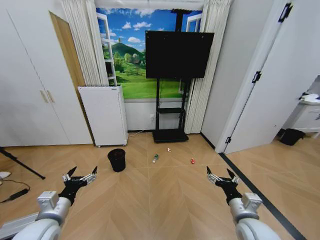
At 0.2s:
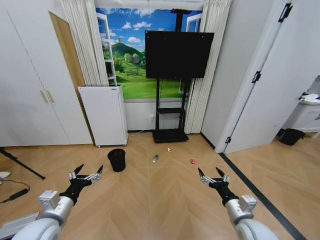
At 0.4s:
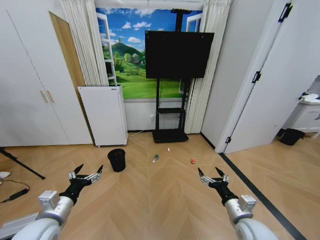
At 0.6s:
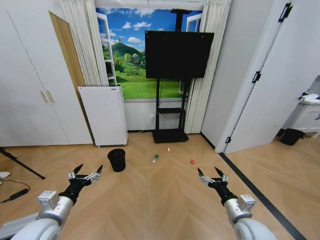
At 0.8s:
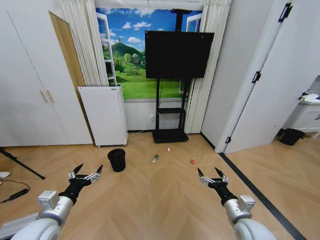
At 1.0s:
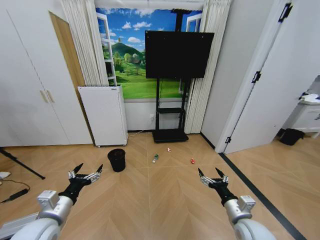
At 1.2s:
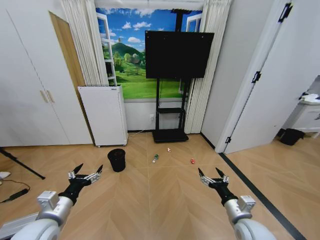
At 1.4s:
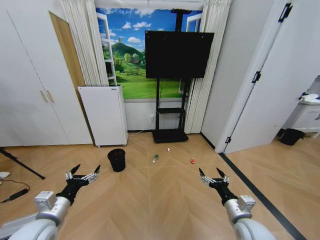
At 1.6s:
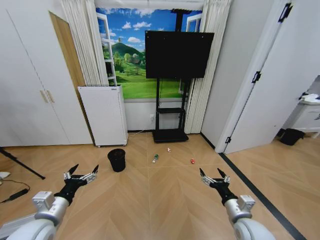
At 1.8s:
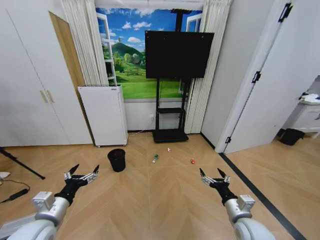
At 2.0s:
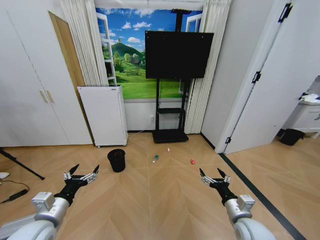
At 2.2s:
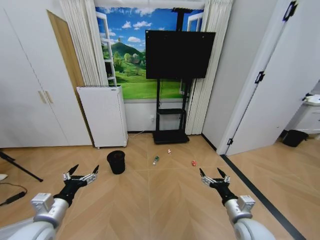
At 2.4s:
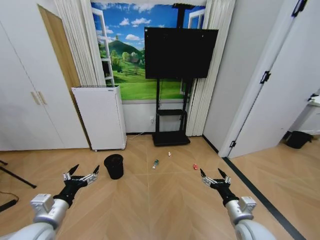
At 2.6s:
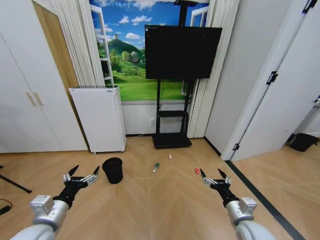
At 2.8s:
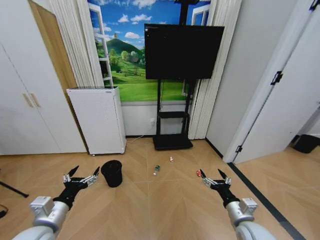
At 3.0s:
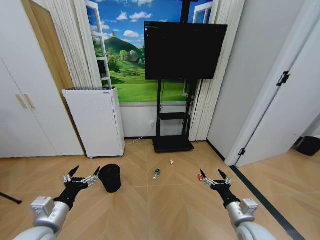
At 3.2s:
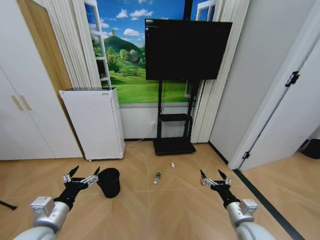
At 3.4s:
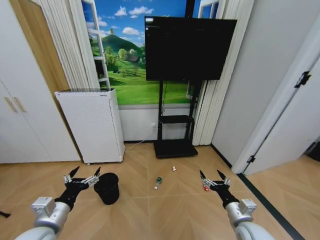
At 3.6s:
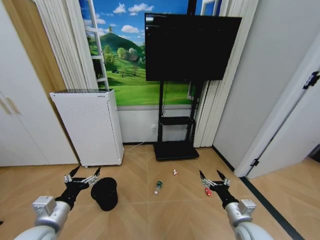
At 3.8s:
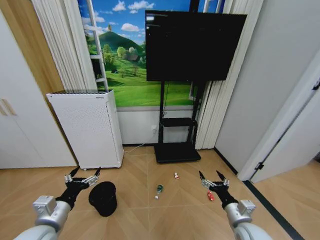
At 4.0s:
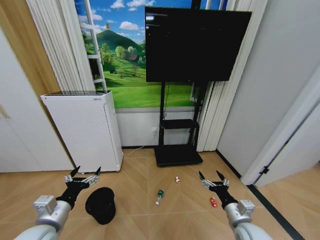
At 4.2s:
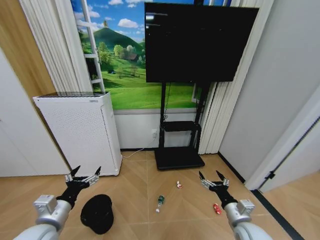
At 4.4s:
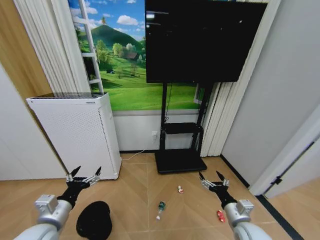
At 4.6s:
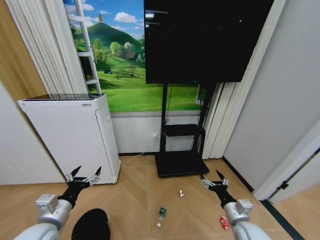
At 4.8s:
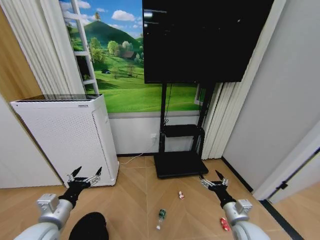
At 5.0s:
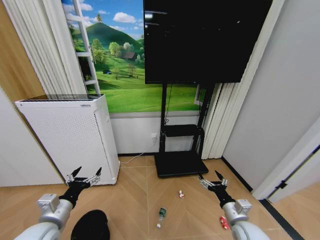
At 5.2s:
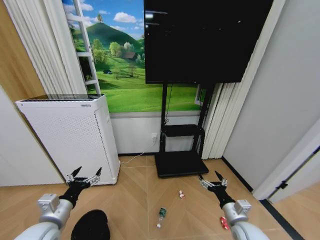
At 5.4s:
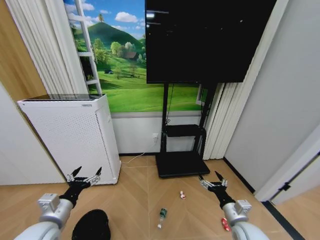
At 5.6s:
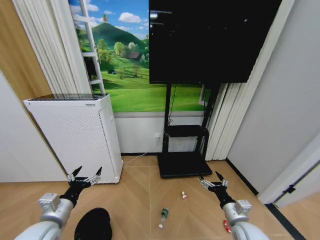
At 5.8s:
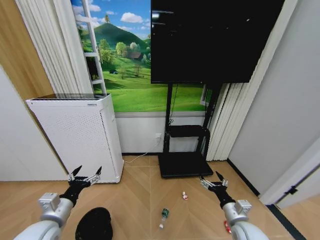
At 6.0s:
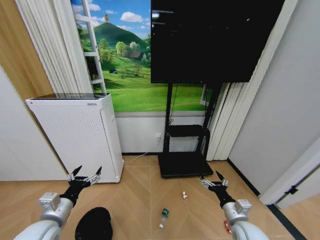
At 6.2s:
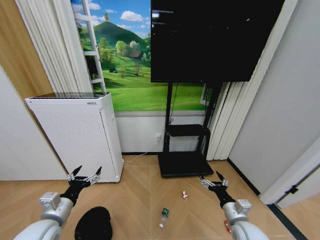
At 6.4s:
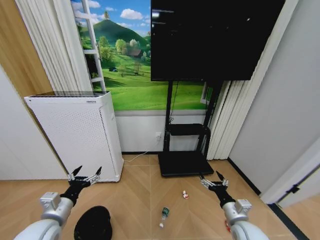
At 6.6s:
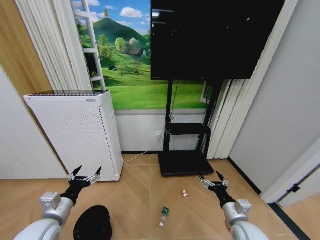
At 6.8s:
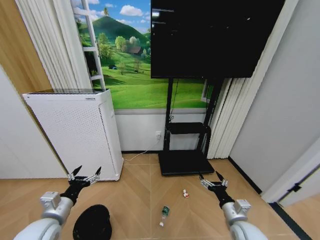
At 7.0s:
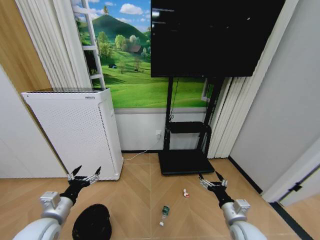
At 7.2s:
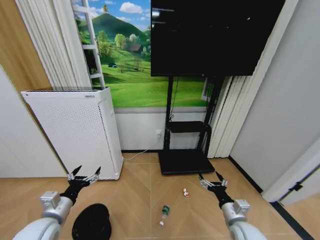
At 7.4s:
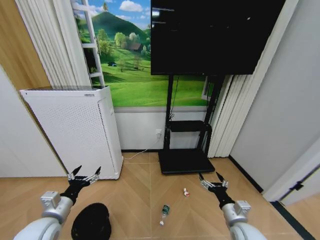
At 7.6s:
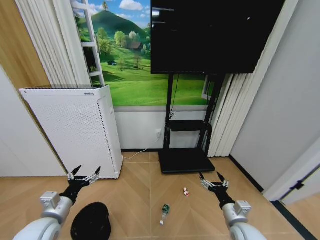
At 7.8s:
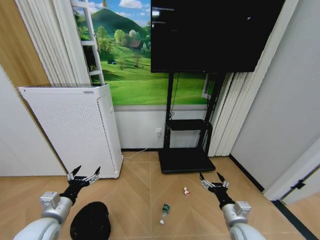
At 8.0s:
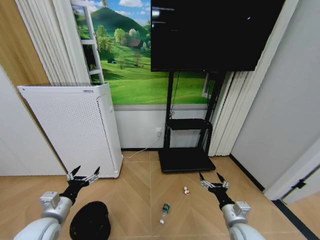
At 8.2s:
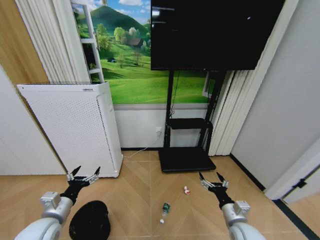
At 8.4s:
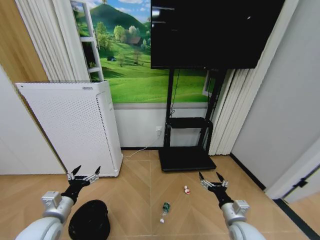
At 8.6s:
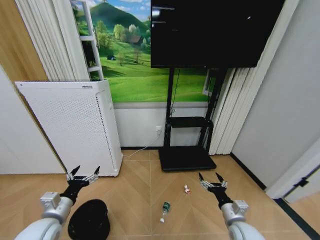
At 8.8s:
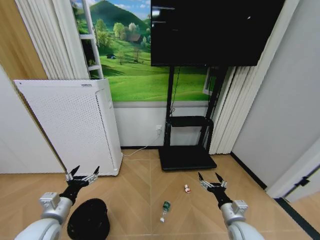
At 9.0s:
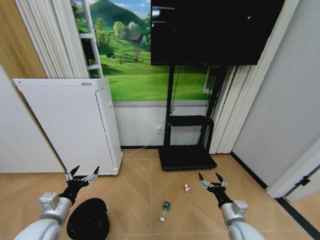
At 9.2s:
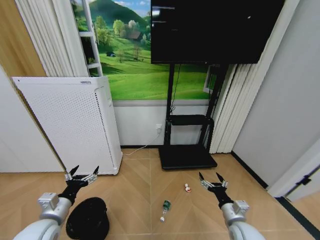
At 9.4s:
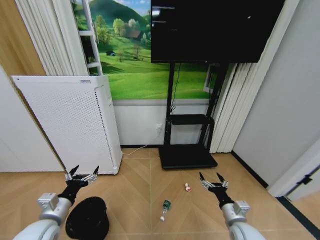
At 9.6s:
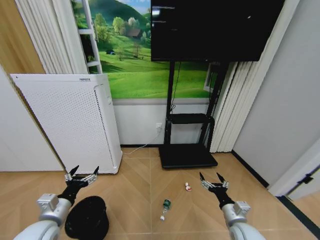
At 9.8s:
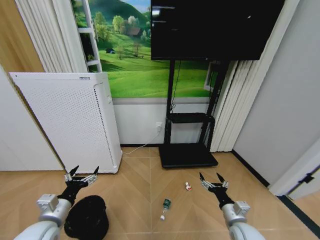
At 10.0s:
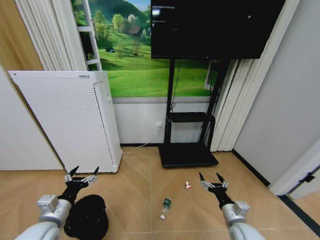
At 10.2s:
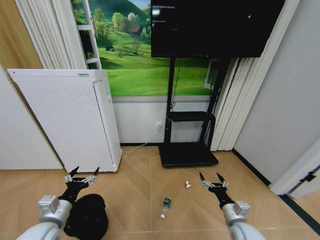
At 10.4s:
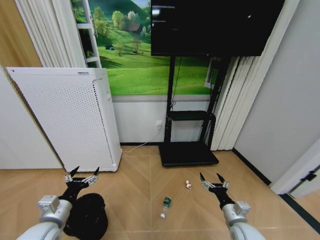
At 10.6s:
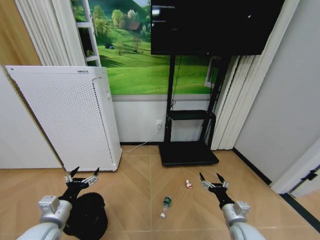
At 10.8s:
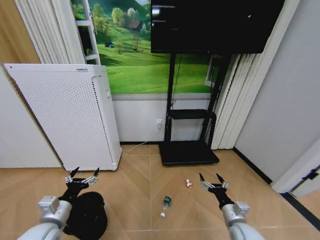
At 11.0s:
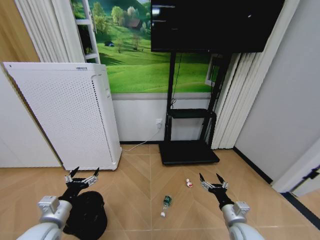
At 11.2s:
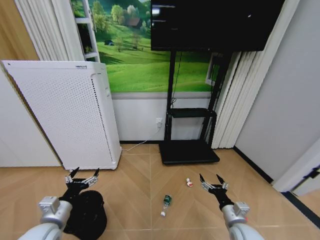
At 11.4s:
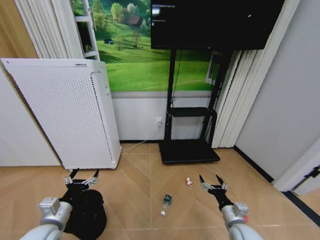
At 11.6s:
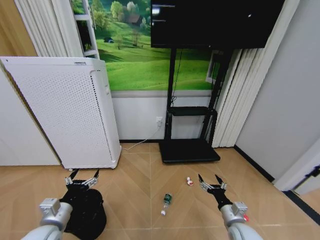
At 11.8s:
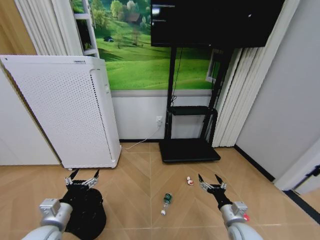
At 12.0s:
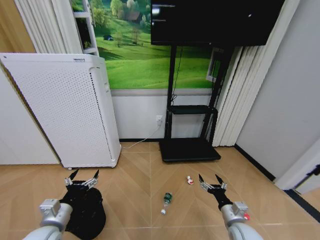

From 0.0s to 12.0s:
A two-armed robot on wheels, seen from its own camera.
Task of the whole recording: Pick up the trash bin and place the garbage on the floor into it.
From 6.0s to 9.0s: There are only small adjustments of the grippers.
From 9.0s to 10.4s: Both grippers stay put.
From 10.4s to 12.0s: The two grippers keep their place.

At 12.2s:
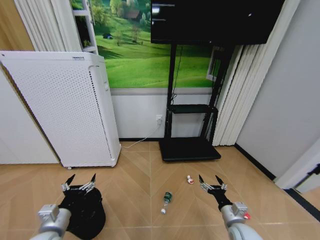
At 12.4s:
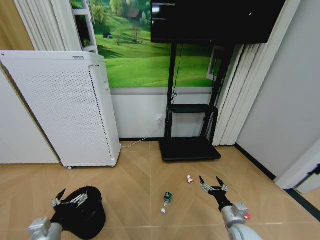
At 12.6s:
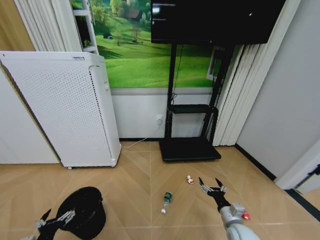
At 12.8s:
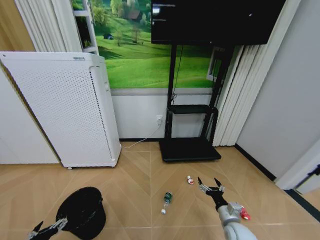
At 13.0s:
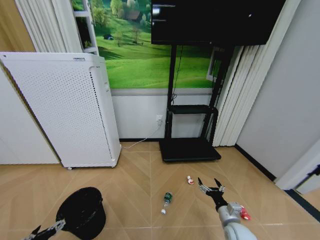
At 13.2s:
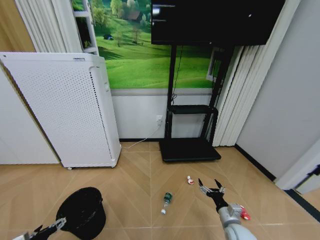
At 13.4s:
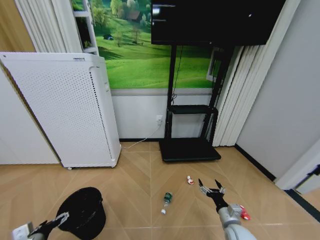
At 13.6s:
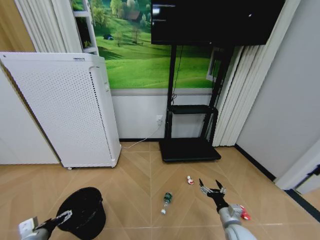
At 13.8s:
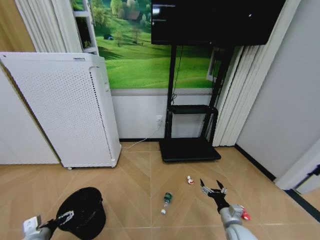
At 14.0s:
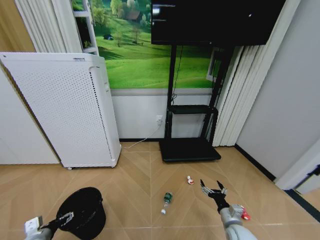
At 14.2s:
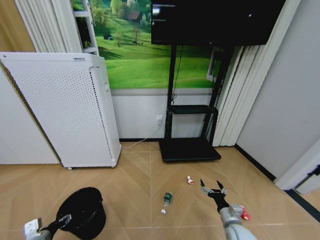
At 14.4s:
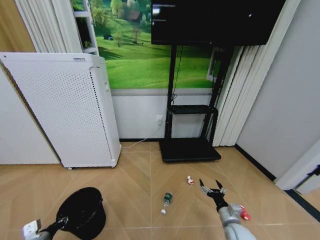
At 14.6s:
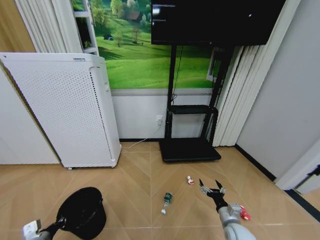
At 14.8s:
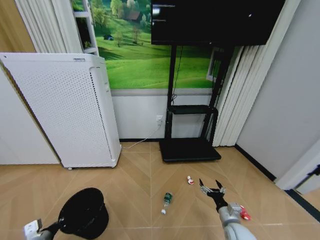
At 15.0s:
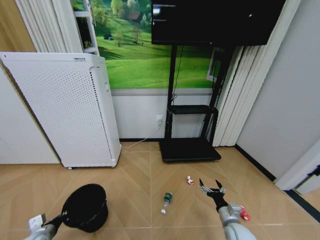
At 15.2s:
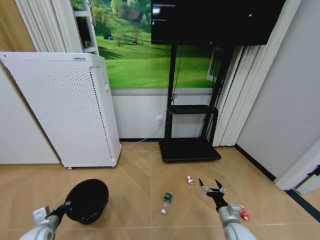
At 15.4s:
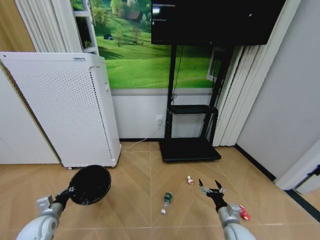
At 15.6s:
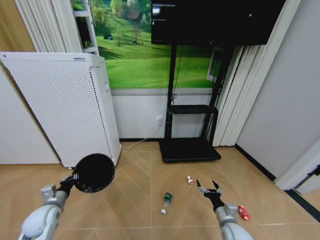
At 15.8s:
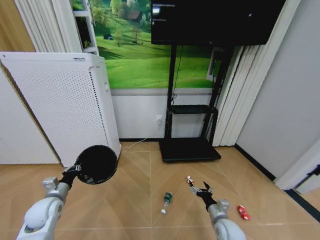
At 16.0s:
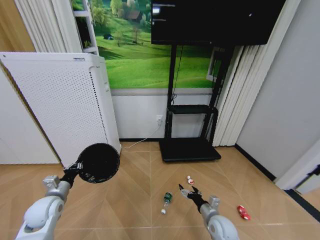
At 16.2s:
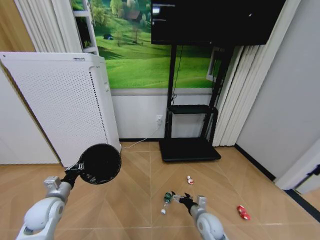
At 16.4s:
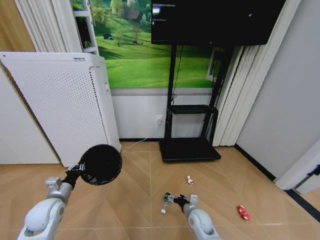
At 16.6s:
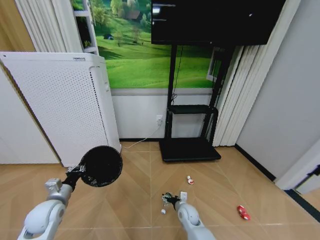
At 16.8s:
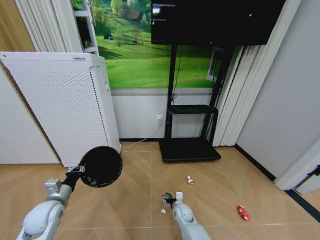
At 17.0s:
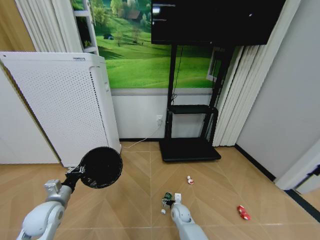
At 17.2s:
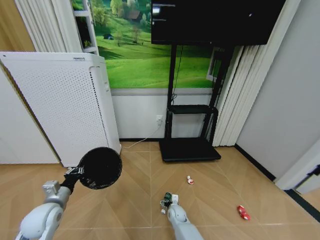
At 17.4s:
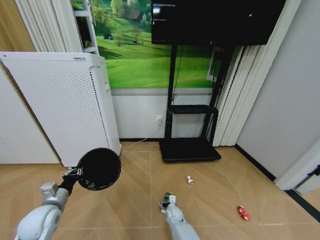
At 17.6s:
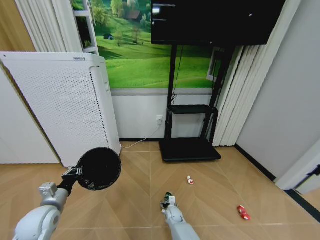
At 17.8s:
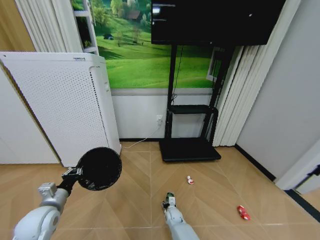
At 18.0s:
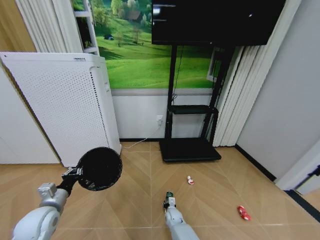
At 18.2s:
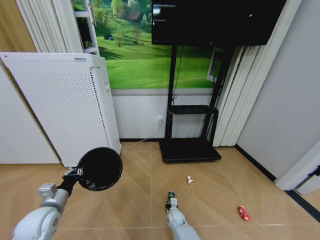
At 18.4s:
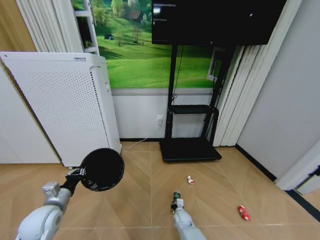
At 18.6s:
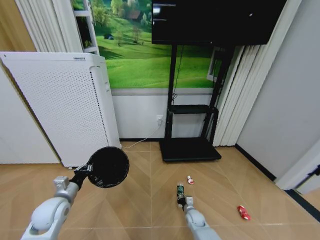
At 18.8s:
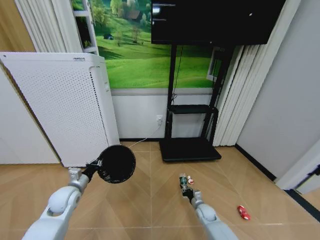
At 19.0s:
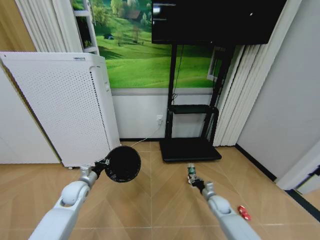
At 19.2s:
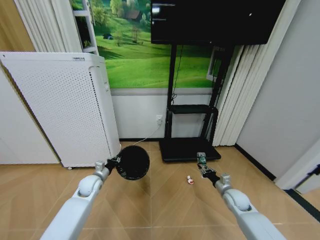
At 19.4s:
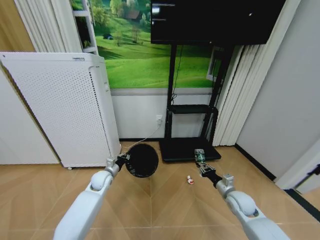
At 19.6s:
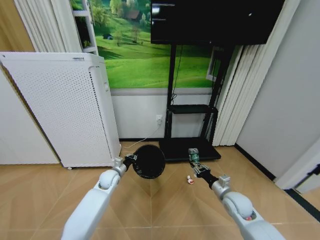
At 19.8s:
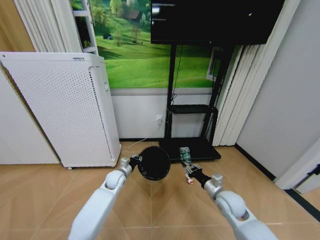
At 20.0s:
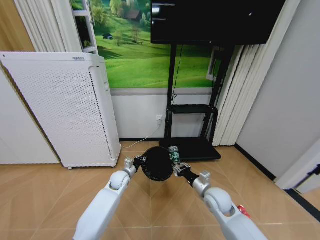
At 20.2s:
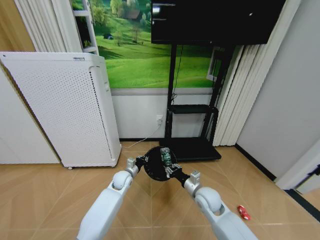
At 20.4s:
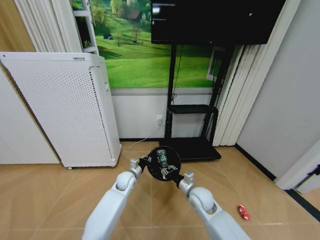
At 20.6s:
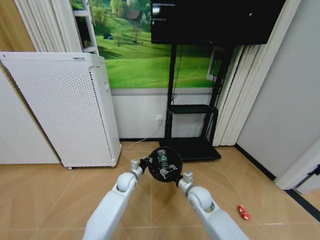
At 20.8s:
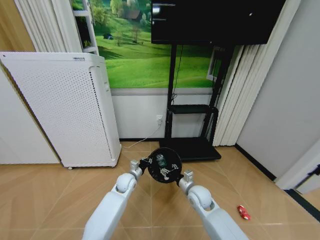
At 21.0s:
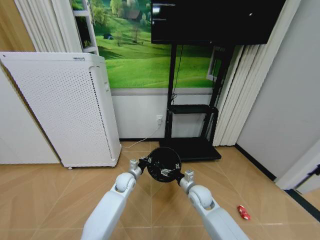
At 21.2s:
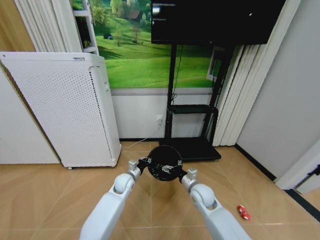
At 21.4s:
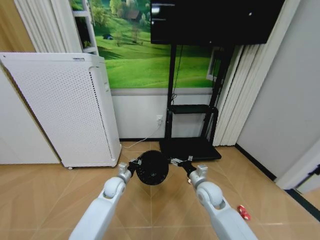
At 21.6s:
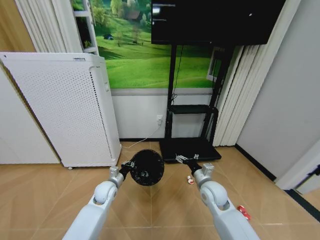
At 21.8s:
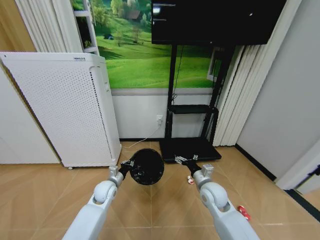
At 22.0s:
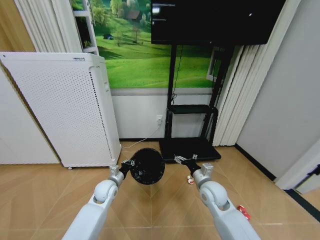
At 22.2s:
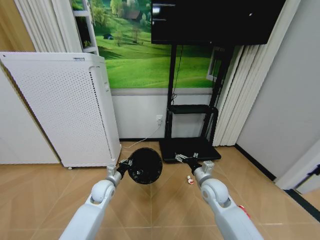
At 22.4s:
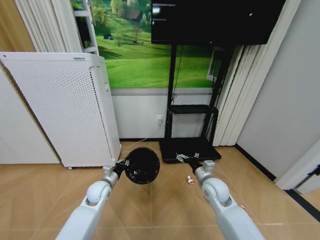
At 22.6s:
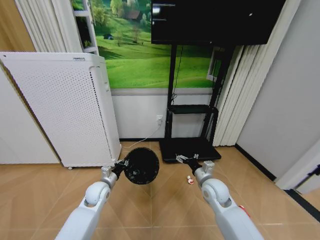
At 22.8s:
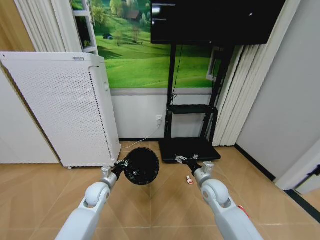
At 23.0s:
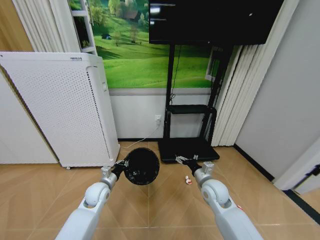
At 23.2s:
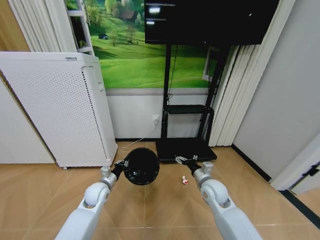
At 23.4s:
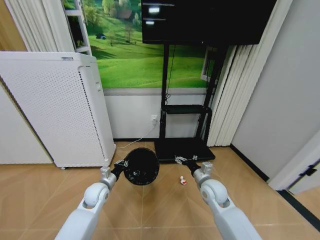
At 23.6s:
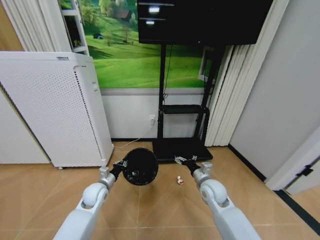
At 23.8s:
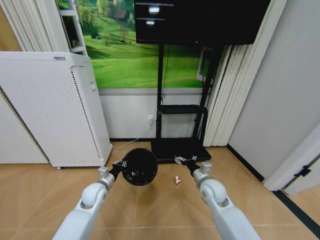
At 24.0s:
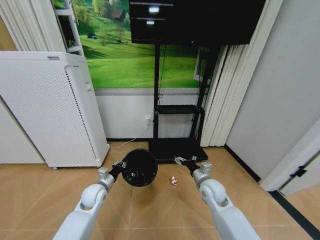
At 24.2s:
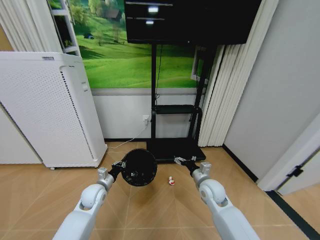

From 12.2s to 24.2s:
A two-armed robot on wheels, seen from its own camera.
Task of the whole recording: Pick up the trash bin and place the garbage on the floor into it.
From 12.2s to 13.8s: The left gripper goes roughly 15 cm to the left and downward.
From 13.8s to 15.2s: The left gripper closes.
From 15.2s to 16.6s: The right gripper moves to the left, forward and downward, about 20 cm. Meanwhile the left gripper travels upward, forward and to the right by approximately 10 cm.
From 16.6s to 18.2s: The right gripper is displaced downward by approximately 10 cm, and closes.
From 18.2s to 19.8s: The right gripper travels upward and to the right by roughly 35 cm, while the left gripper moves forward and to the right, about 25 cm.
From 19.8s to 21.2s: The right gripper shifts about 10 cm to the left, and opens.
From 21.2s to 22.6s: The right gripper moves about 5 cm, while the left gripper goes some 10 cm to the left and backward.
